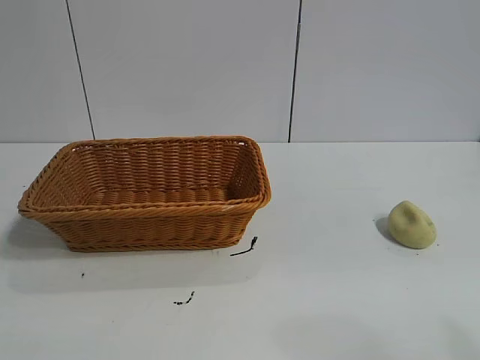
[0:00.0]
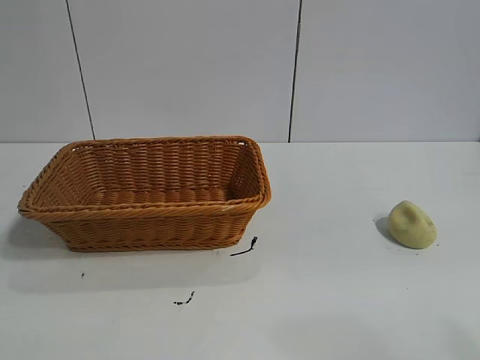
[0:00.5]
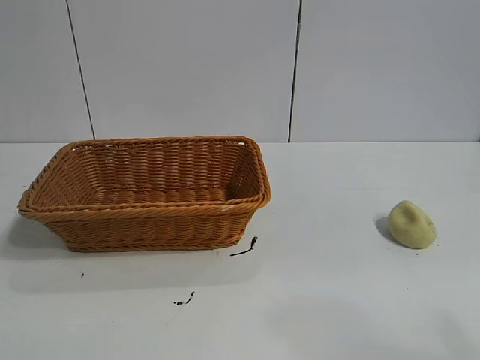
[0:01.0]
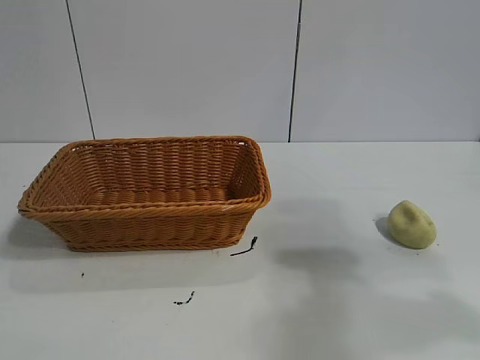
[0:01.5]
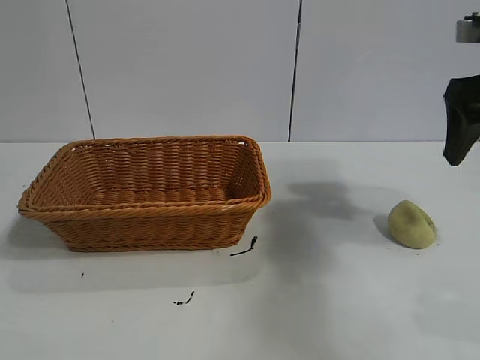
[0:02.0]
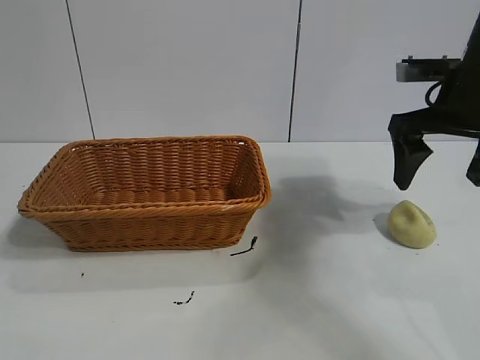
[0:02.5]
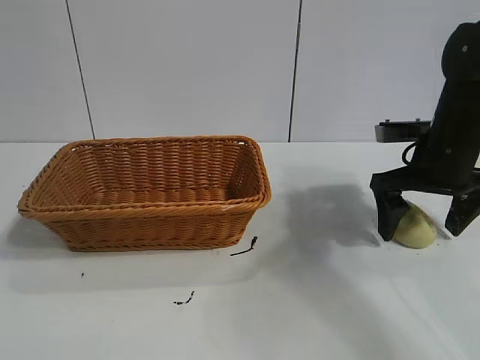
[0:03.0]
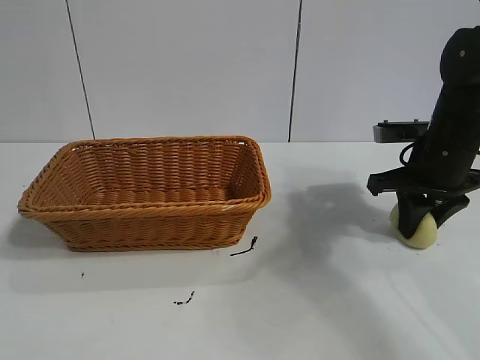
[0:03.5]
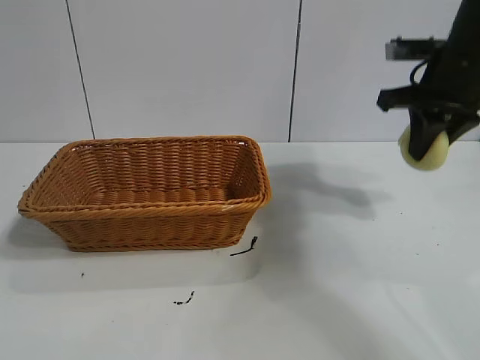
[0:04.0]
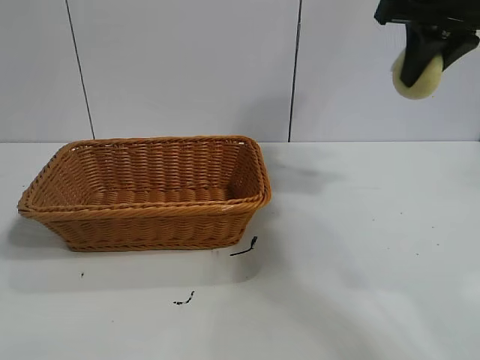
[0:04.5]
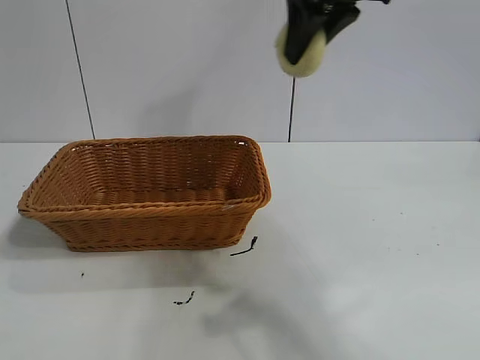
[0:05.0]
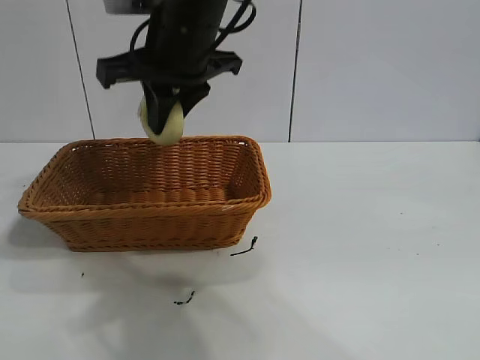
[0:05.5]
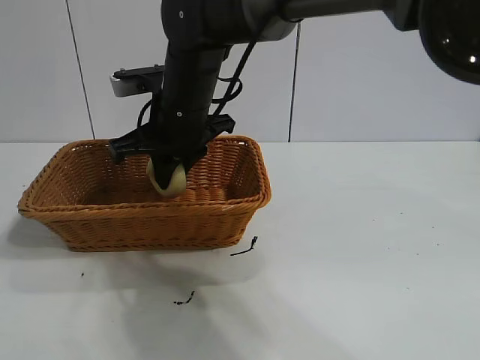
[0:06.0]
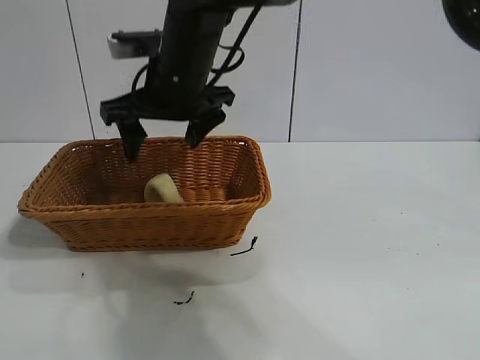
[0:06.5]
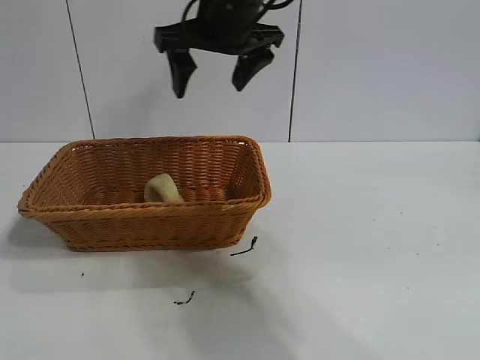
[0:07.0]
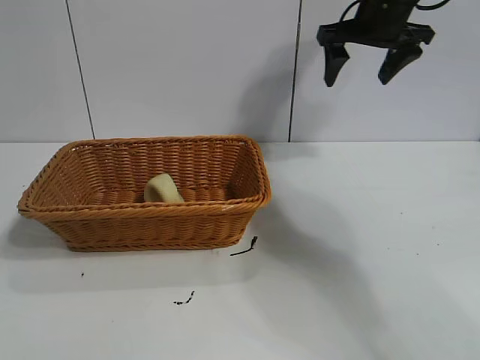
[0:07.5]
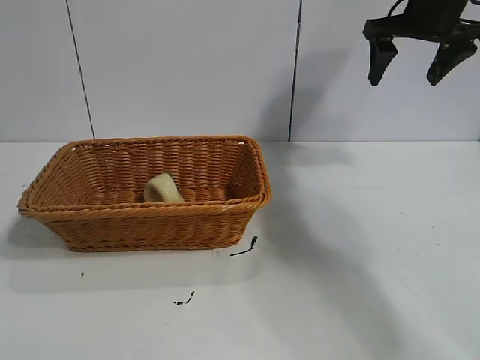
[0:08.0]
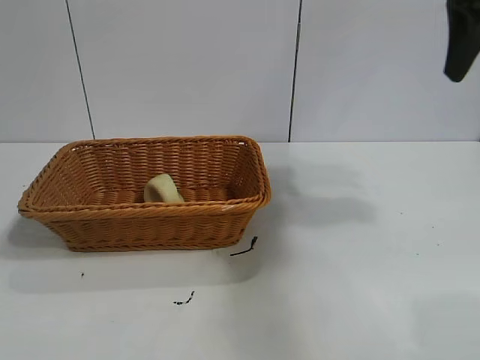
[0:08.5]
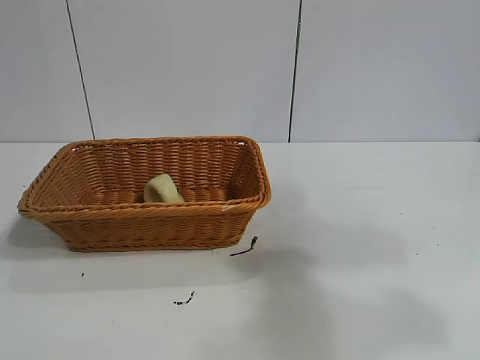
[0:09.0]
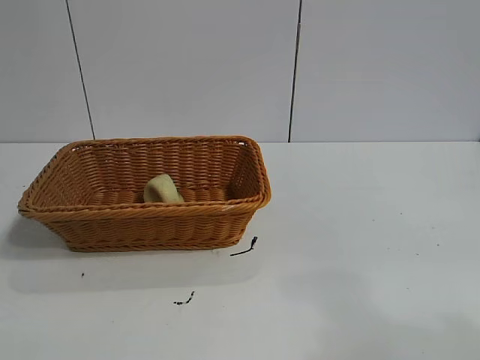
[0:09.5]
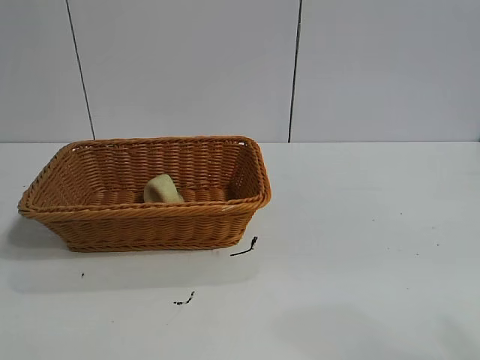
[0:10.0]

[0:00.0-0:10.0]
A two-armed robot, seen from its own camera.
Task of the whole recording: pick up the egg yolk pastry and put it into the basket.
Step, 0:01.0 to 0:03.5: Grasp egg yolk pastry with right gripper.
Step, 0:04.0 to 0:06.0: Place the egg yolk pastry in the basket with right gripper.
